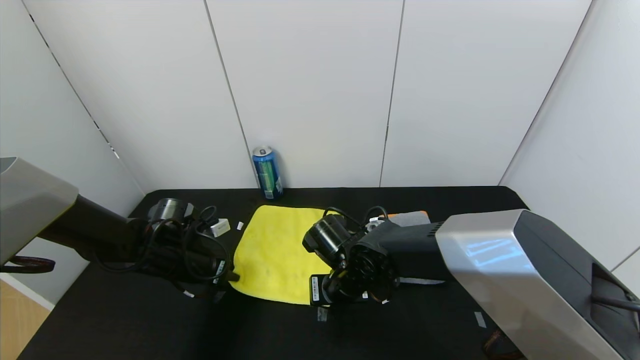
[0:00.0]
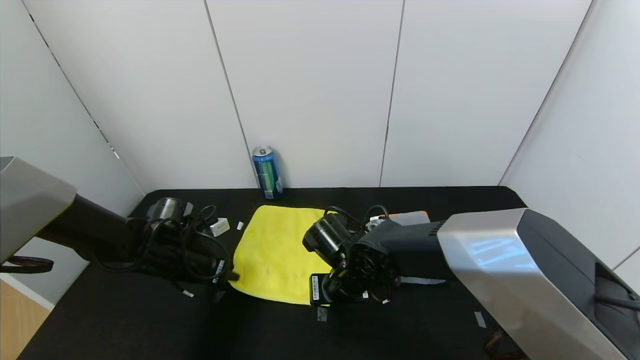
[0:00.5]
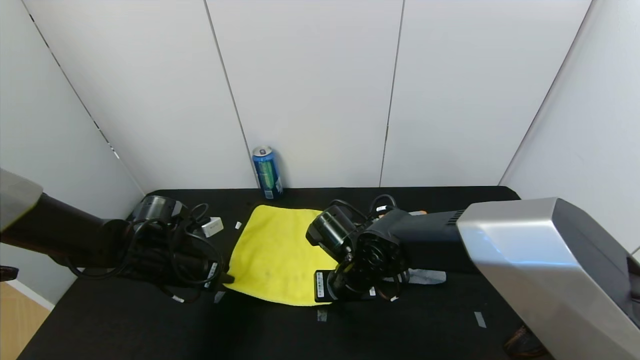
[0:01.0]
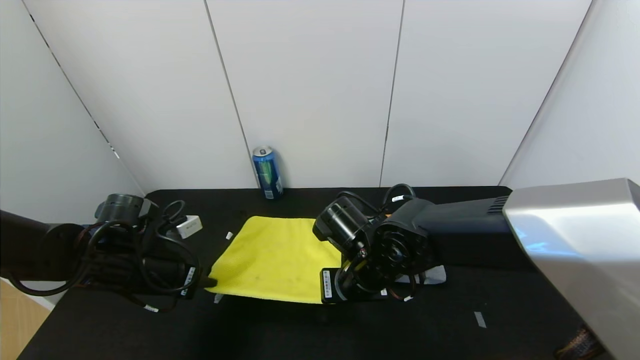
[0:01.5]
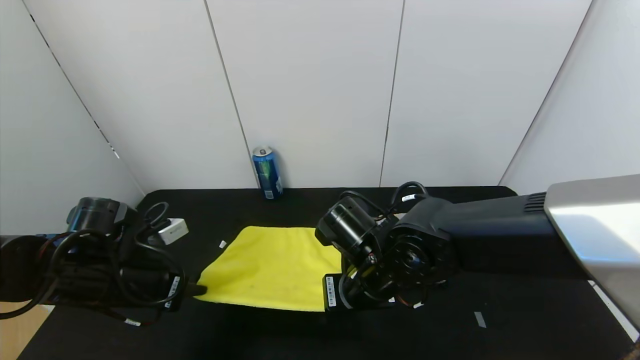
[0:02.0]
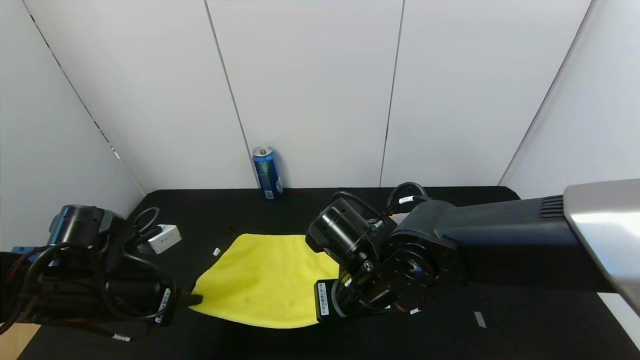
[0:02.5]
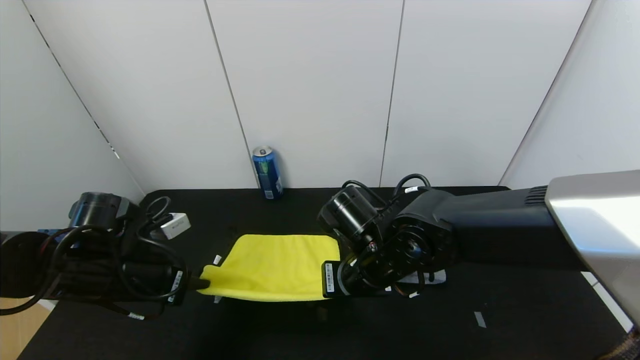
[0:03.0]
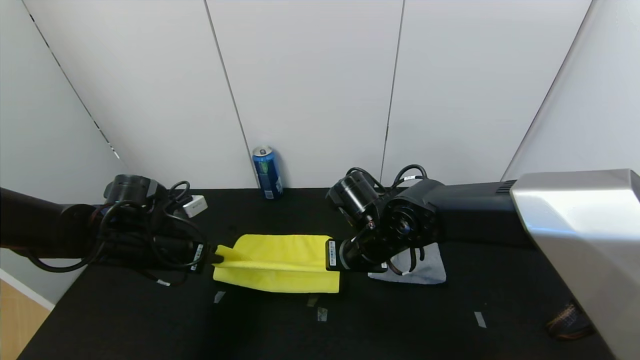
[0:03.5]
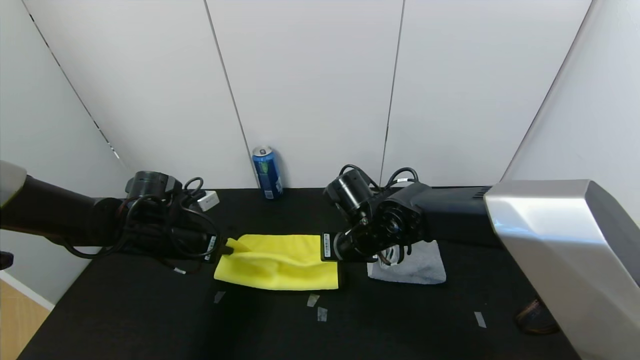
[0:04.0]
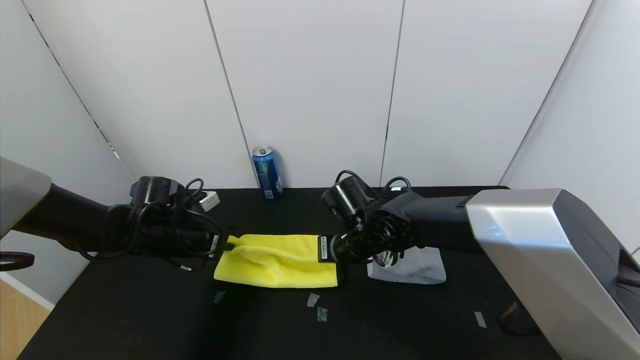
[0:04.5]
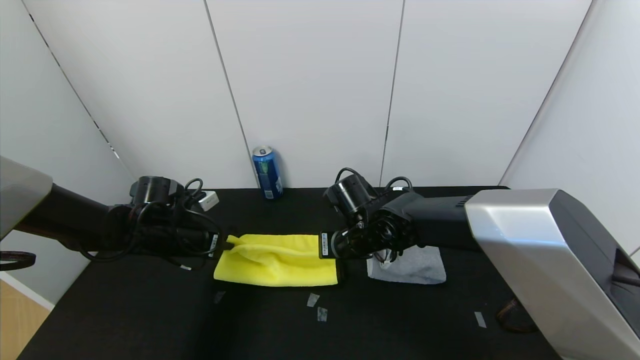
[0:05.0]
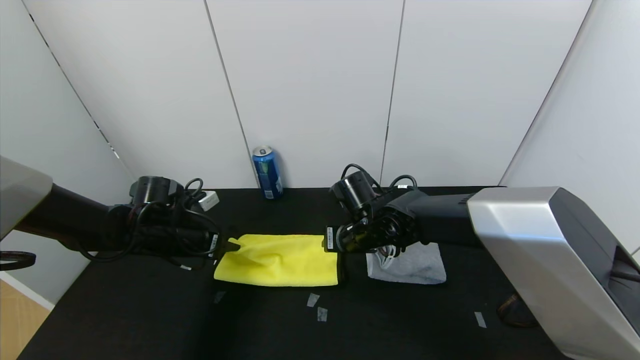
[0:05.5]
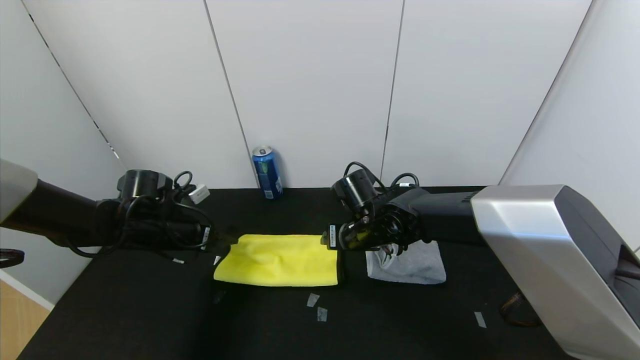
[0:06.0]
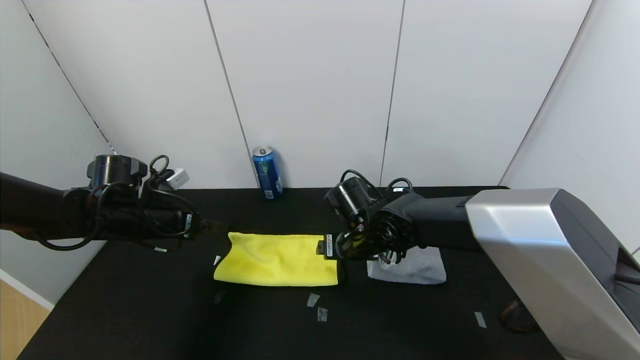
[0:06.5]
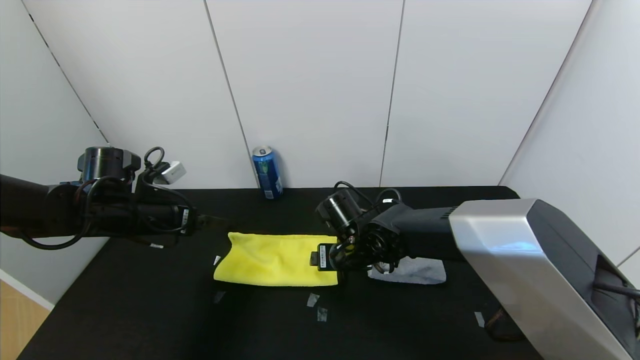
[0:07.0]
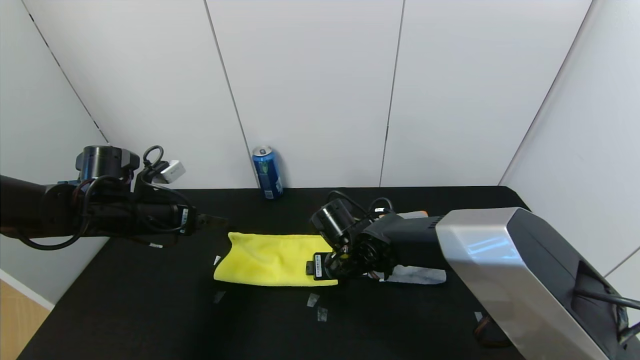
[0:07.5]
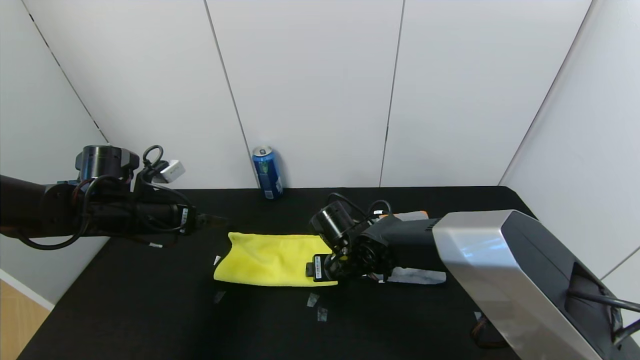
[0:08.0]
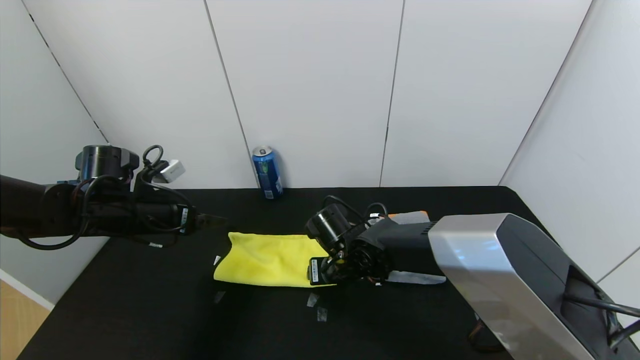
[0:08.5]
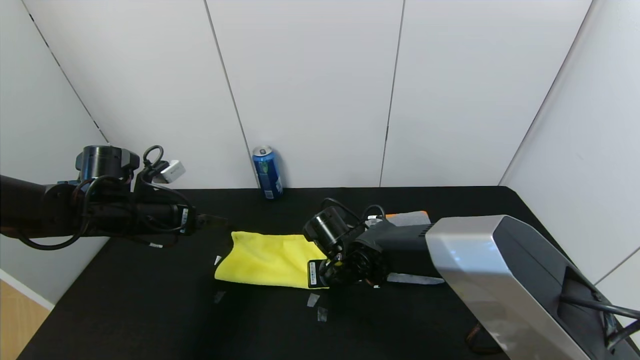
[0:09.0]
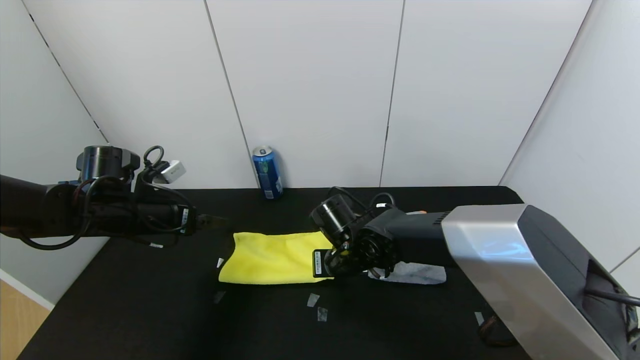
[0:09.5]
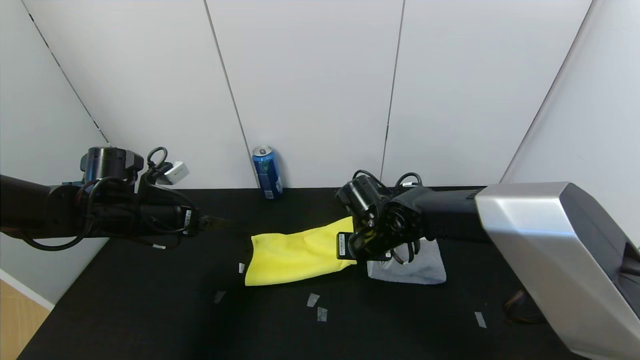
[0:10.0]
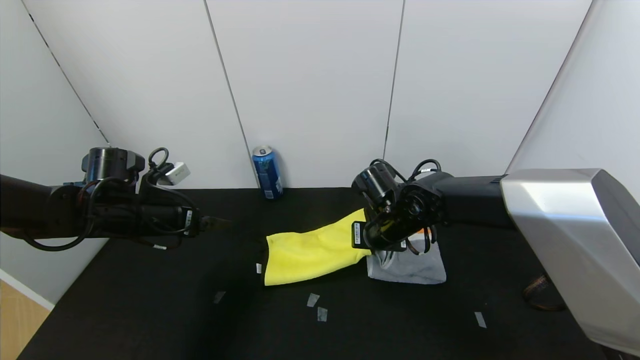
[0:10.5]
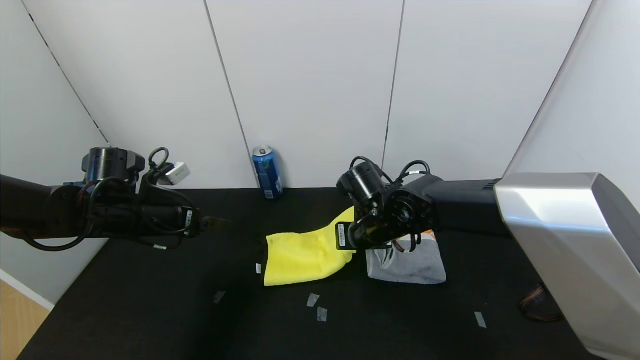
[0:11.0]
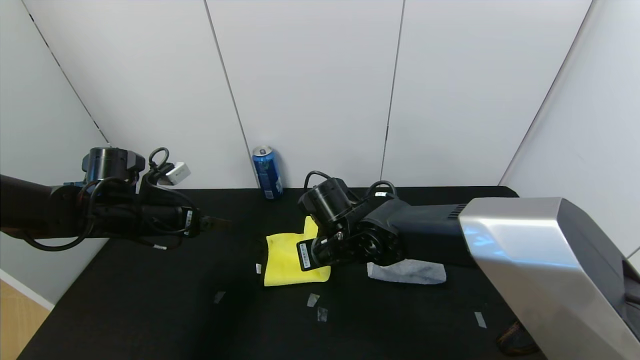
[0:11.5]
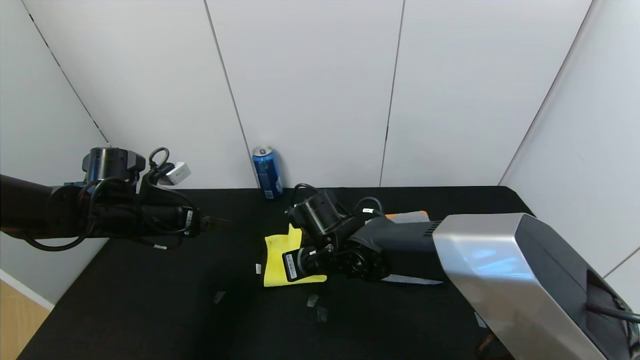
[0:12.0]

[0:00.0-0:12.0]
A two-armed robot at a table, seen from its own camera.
Task of the whole recording: Use the gripper to fold the yellow towel and grey towel in half twice,then put the yellow towel on the grey towel.
Step, 0:00.0 to 0:06.0: Fold the yellow towel upwards with the left gripper.
Step, 0:00.0 to 0:06.0: Fold the yellow towel upwards with the right gripper.
0:00.0 to 0:02.0: The right gripper moves upward and backward, roughly 10 cm, while the left gripper shifts roughly 10 cm backward and upward.
0:02.0 to 0:04.0: The grippers both shift forward by some 10 cm.
0:04.0 to 0:06.0: The left gripper opens its fingers, while the right gripper opens its fingers.
0:06.0 to 0:08.0: The right gripper moves some 5 cm. The left gripper moves roughly 5 cm.
0:08.0 to 0:10.0: The right gripper changes place by about 5 cm, and closes up.
0:10.0 to 0:12.0: The right gripper heads to the left, covering roughly 10 cm.

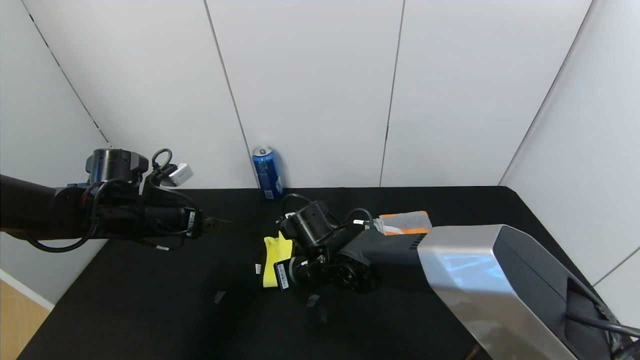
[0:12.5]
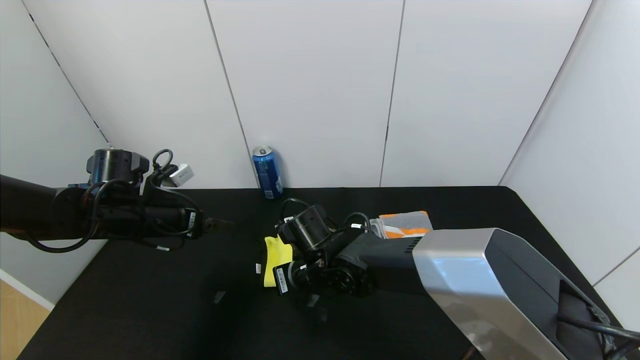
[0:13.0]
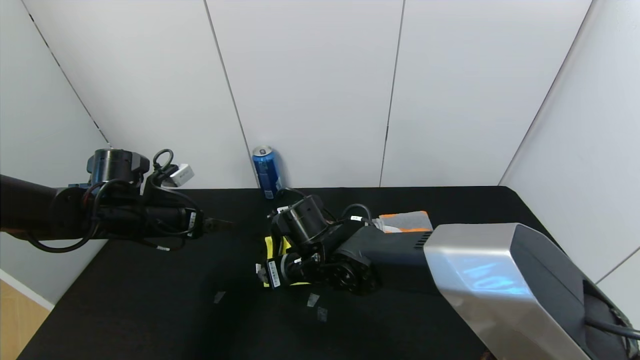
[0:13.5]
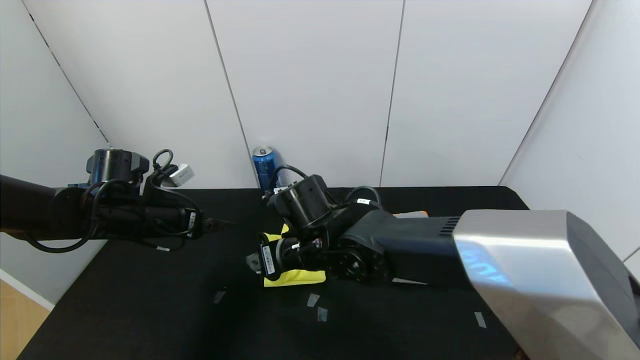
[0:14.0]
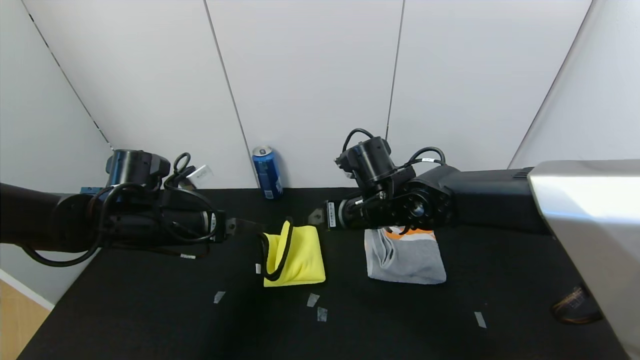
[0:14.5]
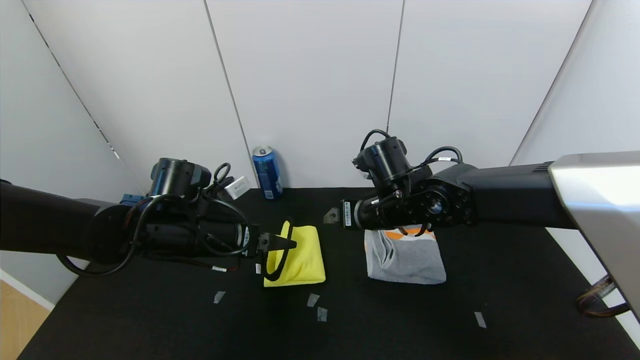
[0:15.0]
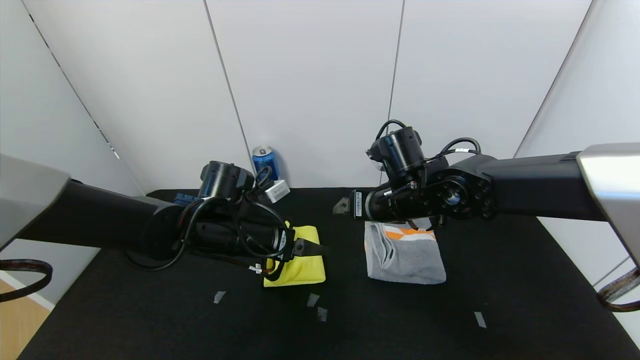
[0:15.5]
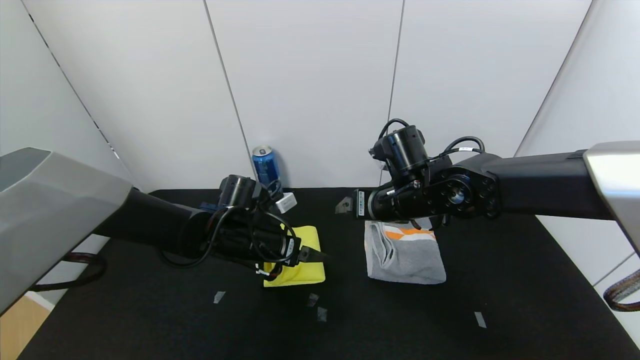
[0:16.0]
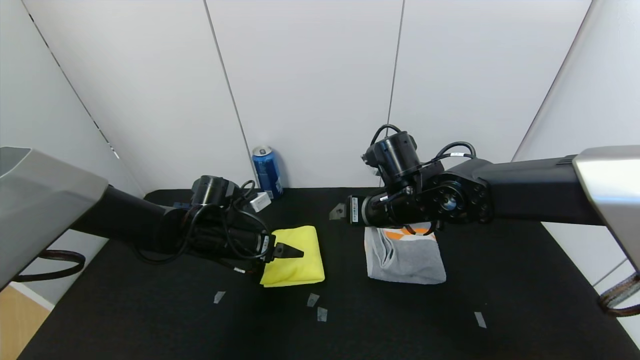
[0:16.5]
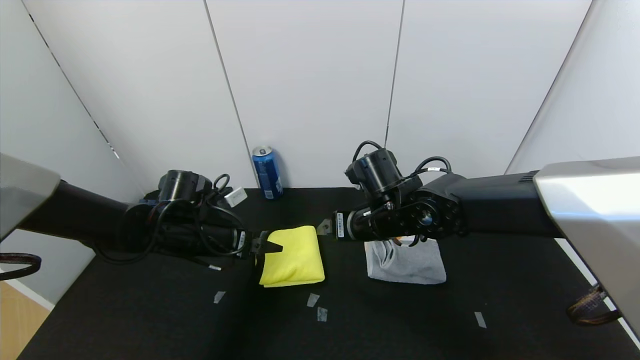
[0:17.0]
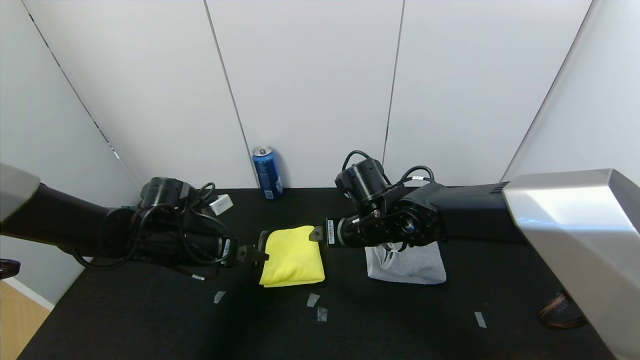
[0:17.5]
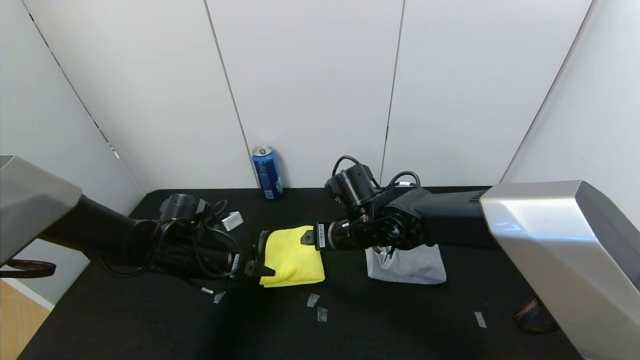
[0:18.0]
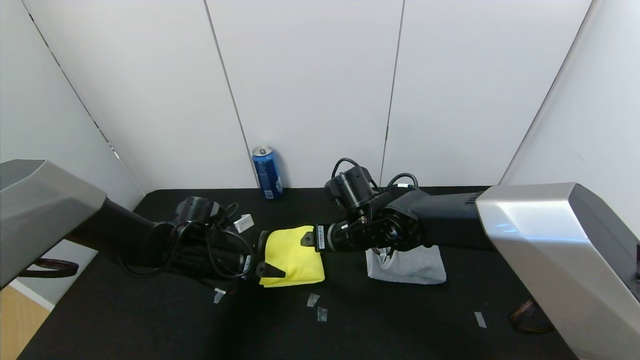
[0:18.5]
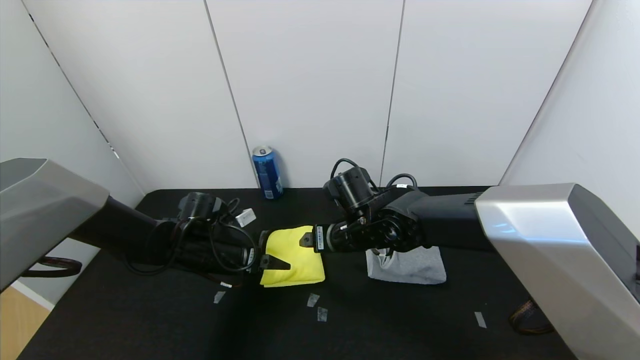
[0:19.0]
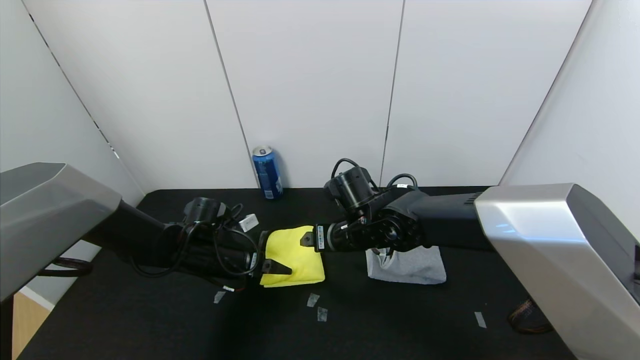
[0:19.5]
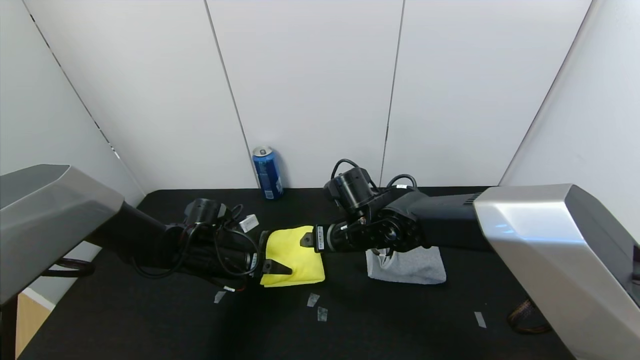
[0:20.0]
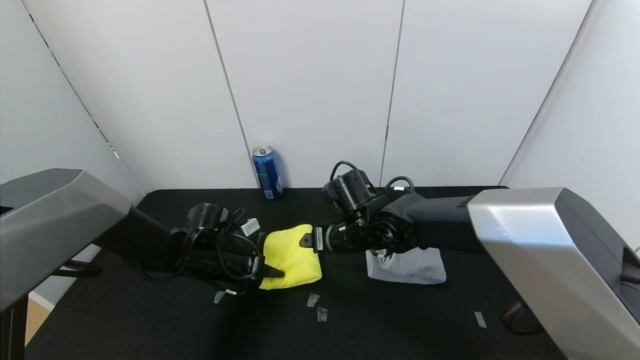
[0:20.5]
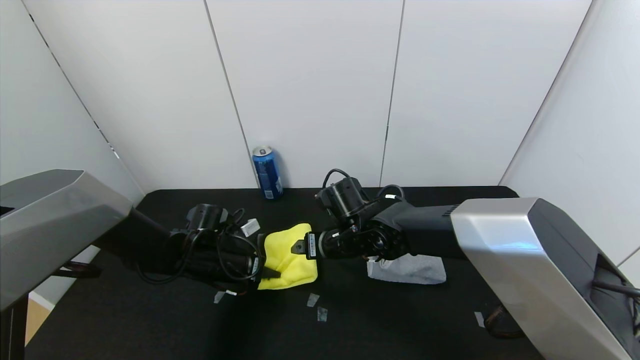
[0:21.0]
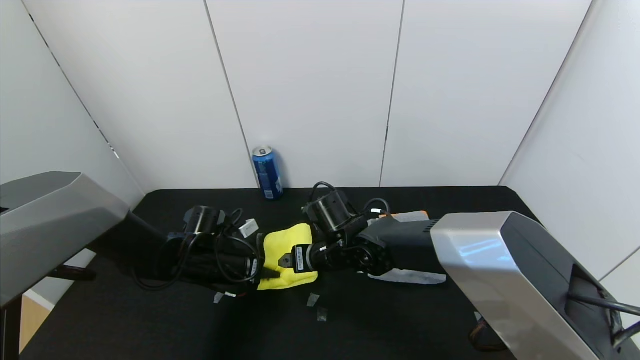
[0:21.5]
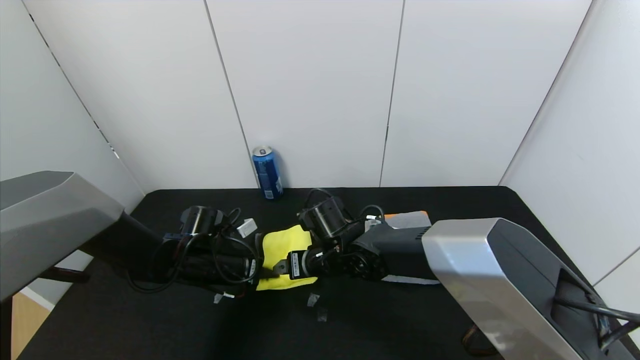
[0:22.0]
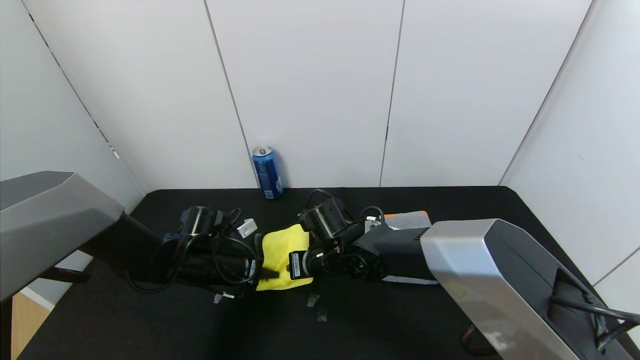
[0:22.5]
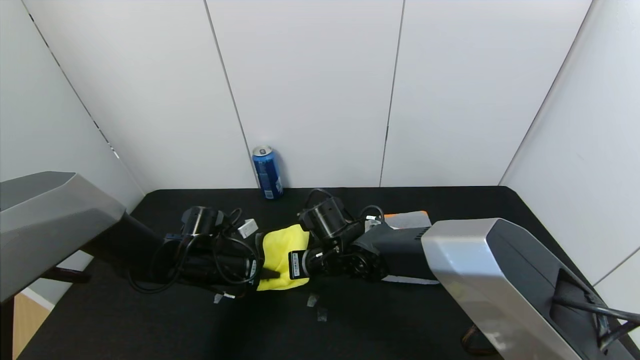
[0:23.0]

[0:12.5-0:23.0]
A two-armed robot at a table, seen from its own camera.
Task of the whole recording: Use the gripper to fold the yellow towel and grey towel in half twice,then put the yellow towel on the grey towel.
0:12.5 to 0:14.5: The left gripper goes about 5 cm to the right. The right gripper shifts roughly 15 cm to the right and upward, and opens its fingers.
0:14.5 to 0:16.5: The left gripper moves downward and to the right, about 10 cm.
0:16.5 to 0:19.0: The right gripper is displaced to the left and downward by some 10 cm.
0:19.0 to 0:21.0: The left gripper closes up.
0:21.0 to 0:23.0: The right gripper closes.
